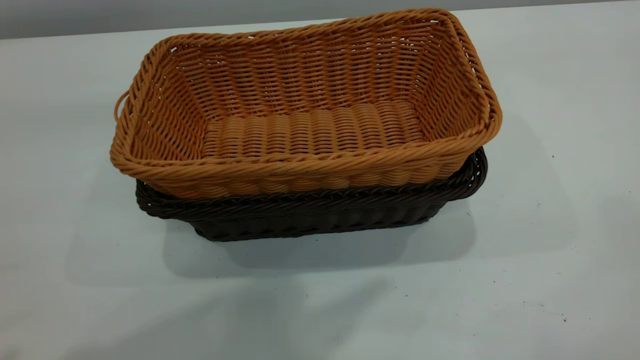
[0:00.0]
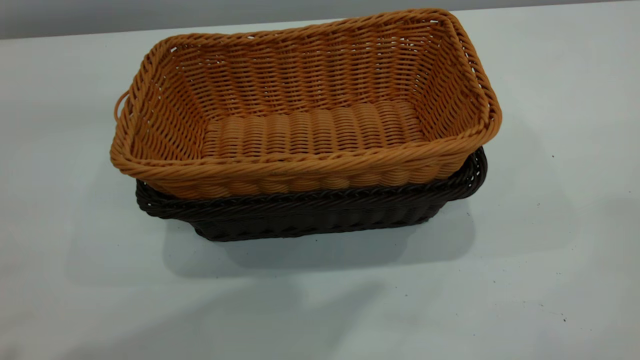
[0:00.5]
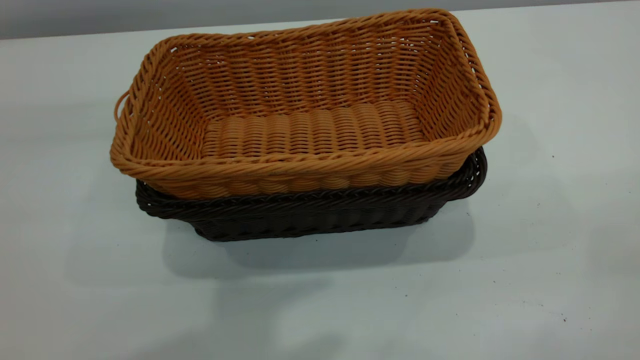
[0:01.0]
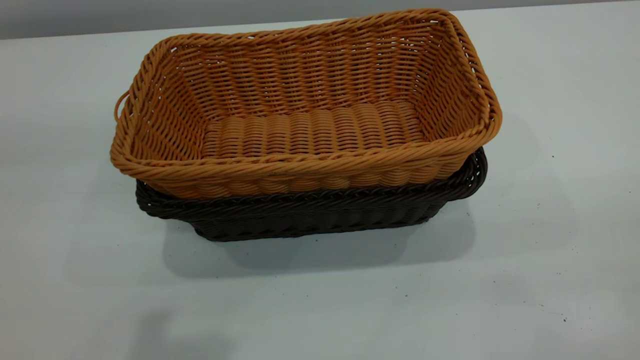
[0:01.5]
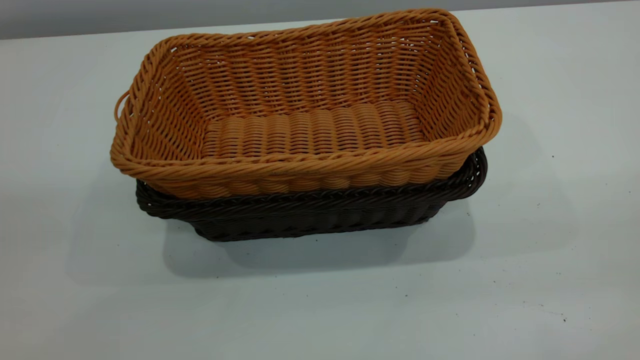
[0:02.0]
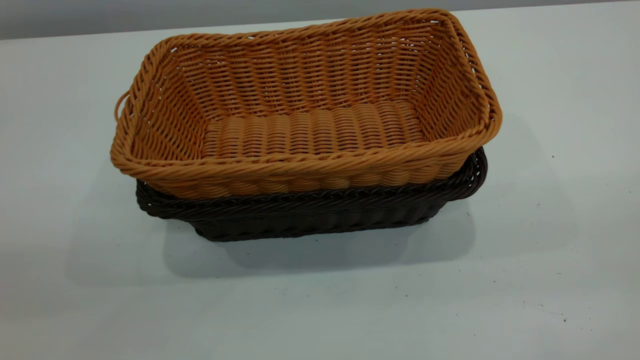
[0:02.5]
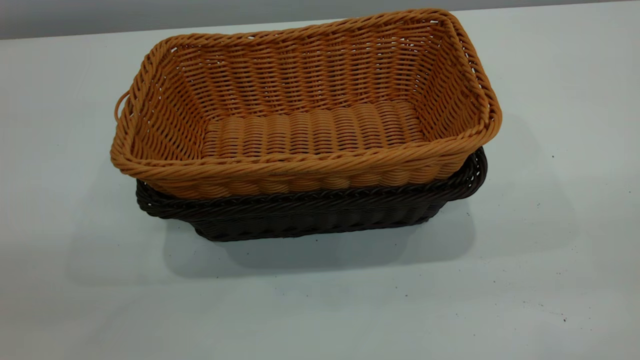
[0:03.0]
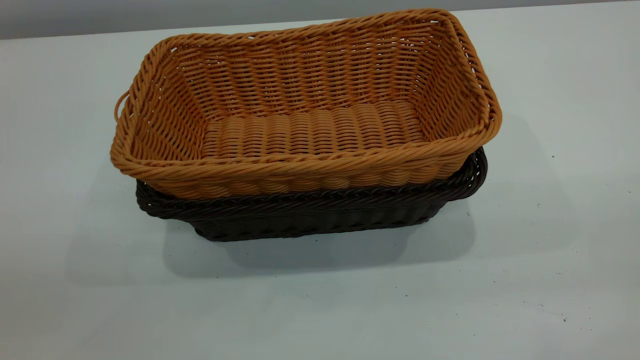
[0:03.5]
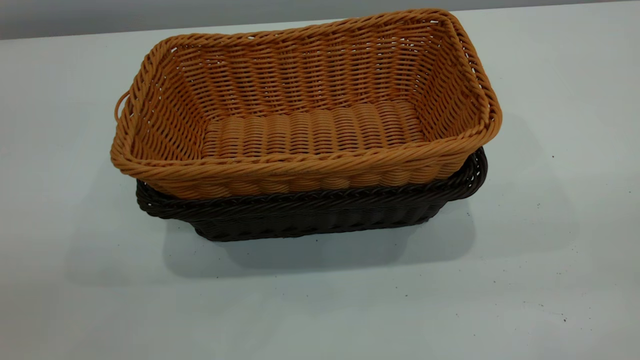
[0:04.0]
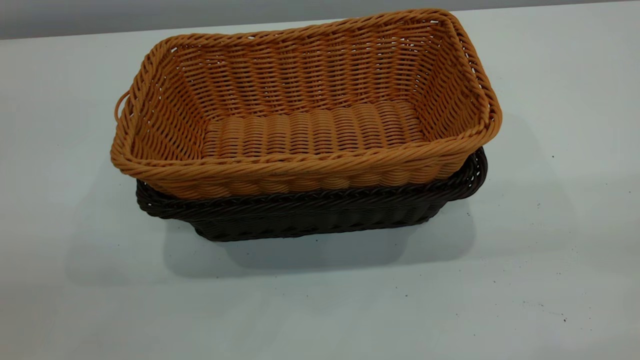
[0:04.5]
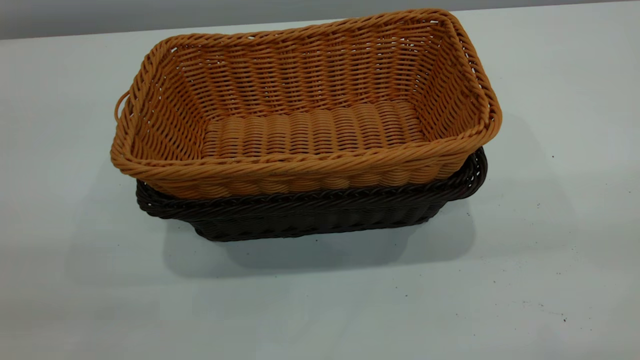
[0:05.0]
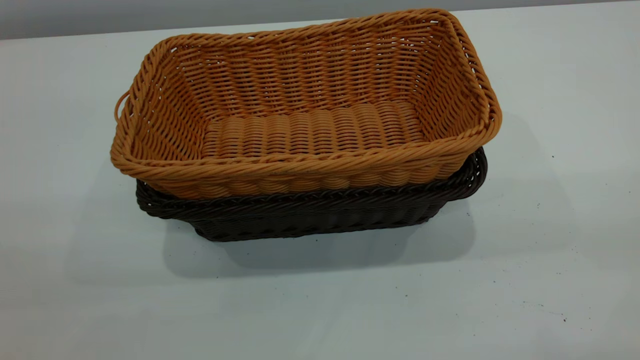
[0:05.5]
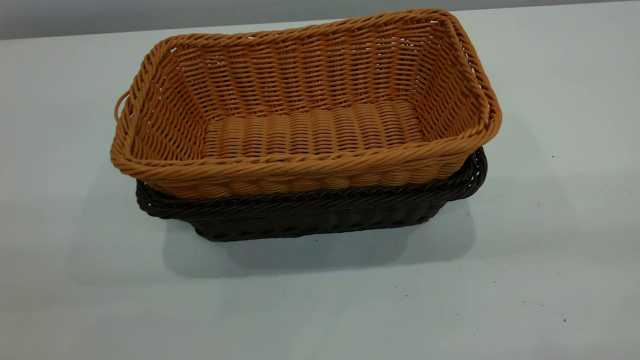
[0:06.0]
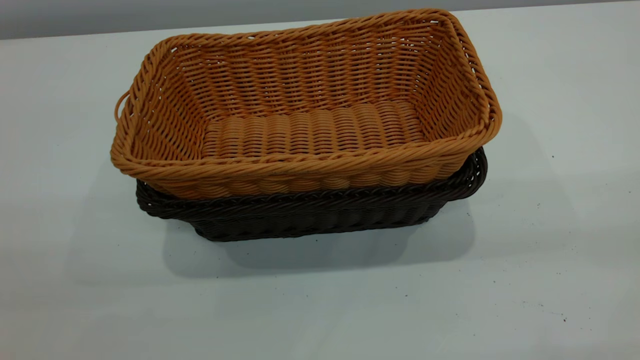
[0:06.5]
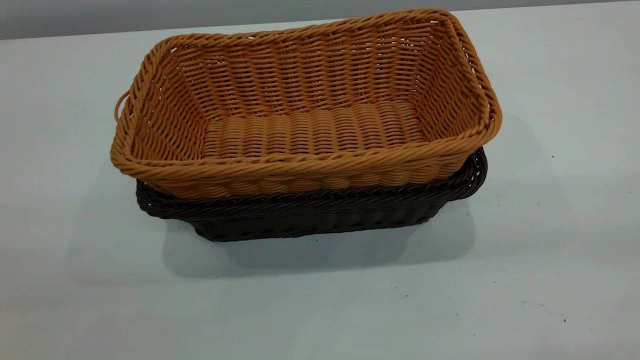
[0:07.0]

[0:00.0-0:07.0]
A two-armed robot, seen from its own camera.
Task of the whole recording: the left gripper grasp the black basket and place it in the center of the table, the right gripper grasp the brown basket and place it inside the black one.
0:00.0 to 0:02.0: The right gripper goes roughly 20 cm downward and backward. Meanwhile the left gripper moves backward, to the left and downward, roughly 20 cm, and closes up.

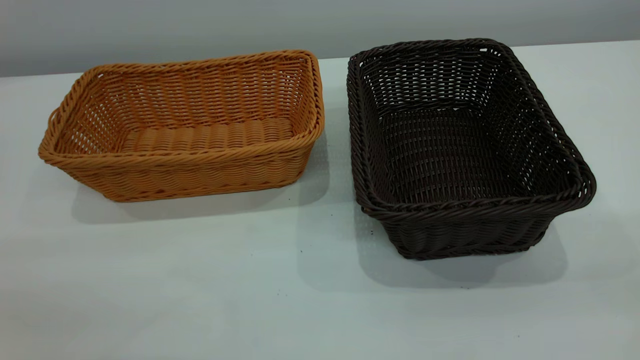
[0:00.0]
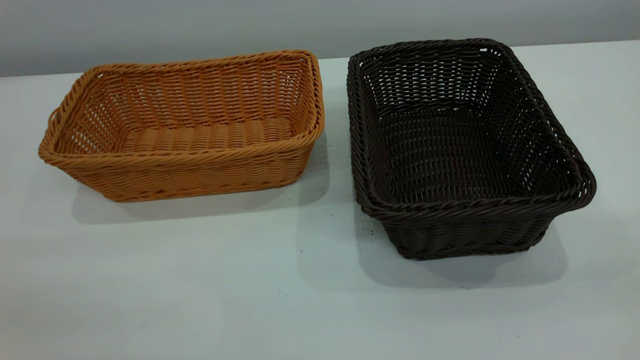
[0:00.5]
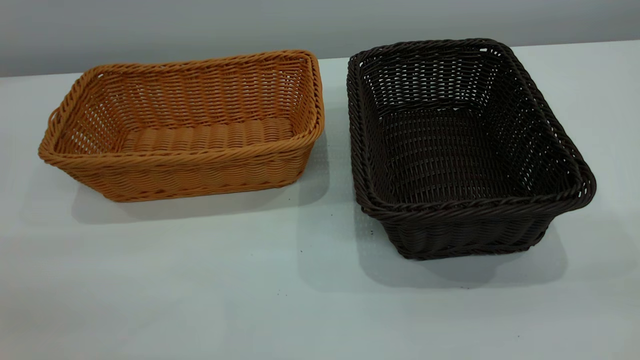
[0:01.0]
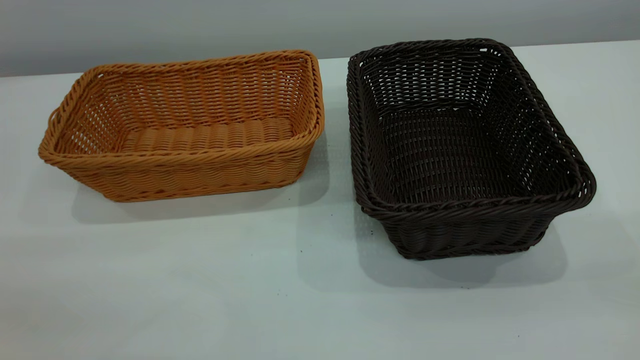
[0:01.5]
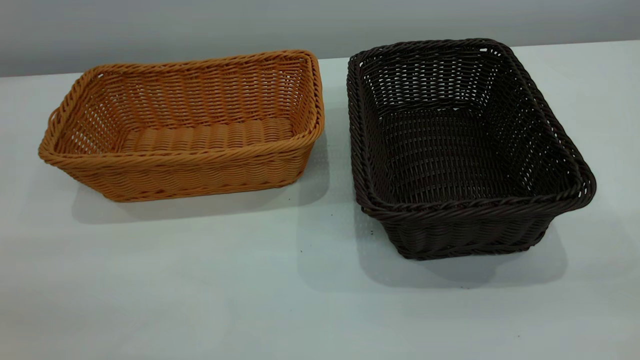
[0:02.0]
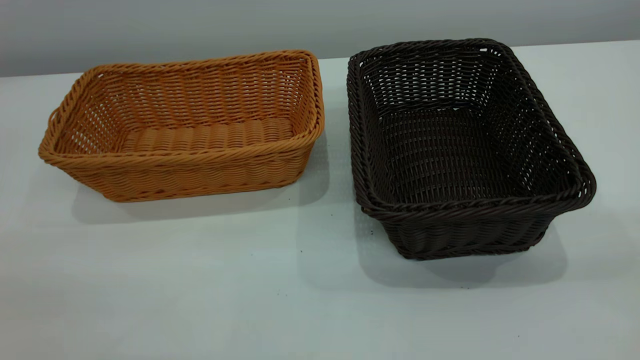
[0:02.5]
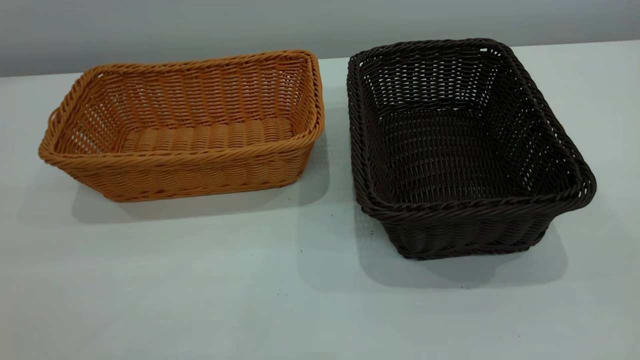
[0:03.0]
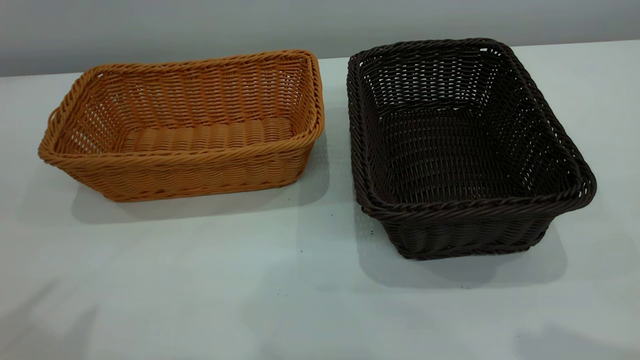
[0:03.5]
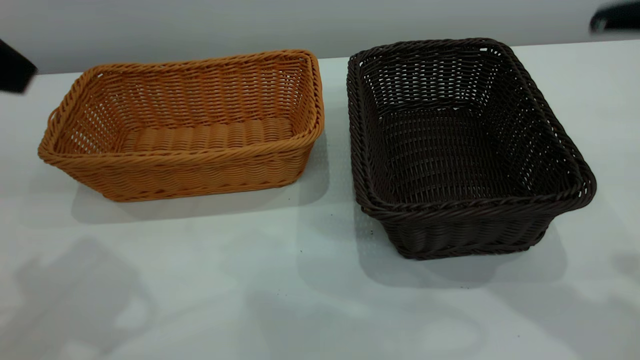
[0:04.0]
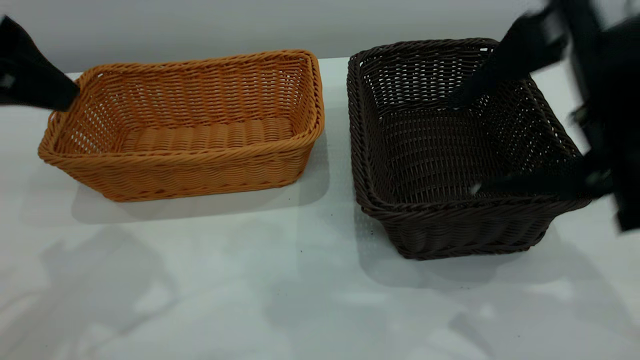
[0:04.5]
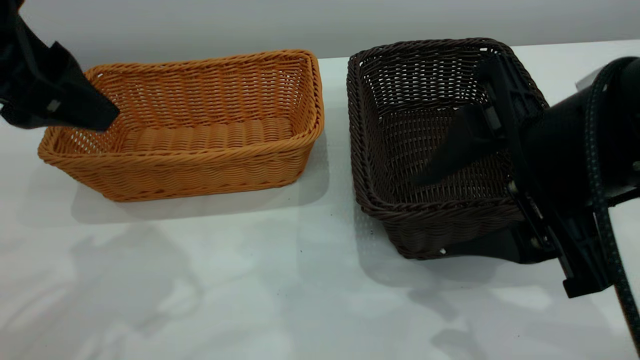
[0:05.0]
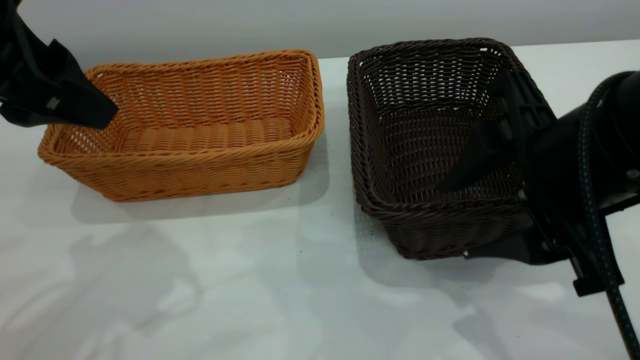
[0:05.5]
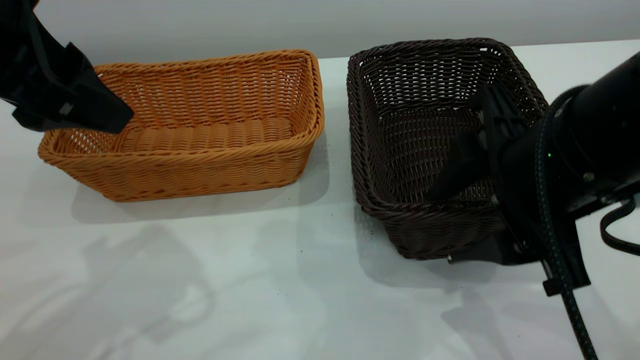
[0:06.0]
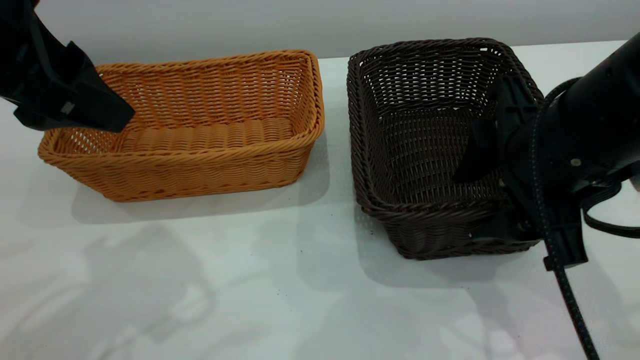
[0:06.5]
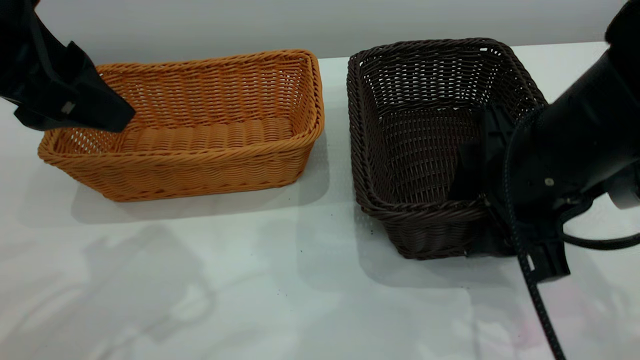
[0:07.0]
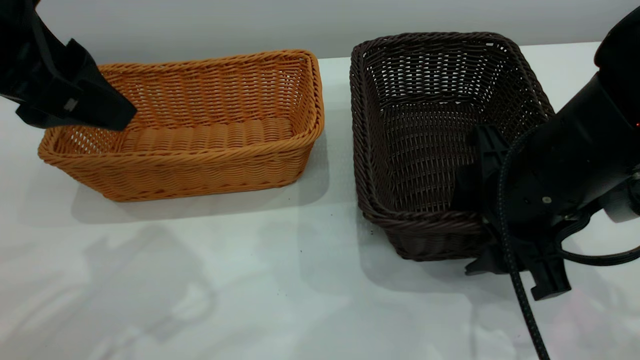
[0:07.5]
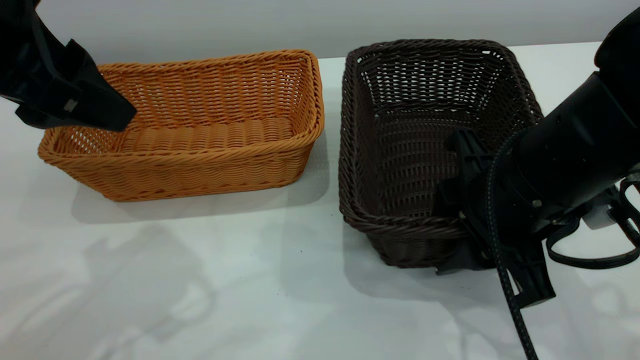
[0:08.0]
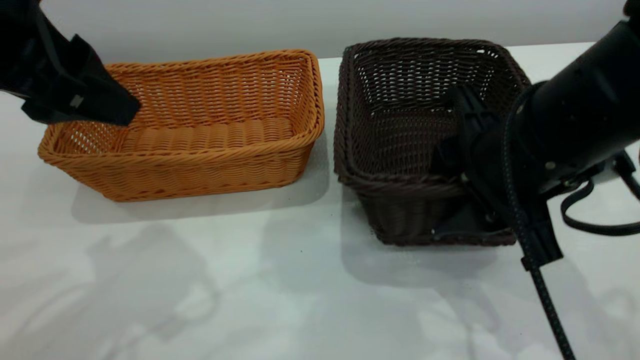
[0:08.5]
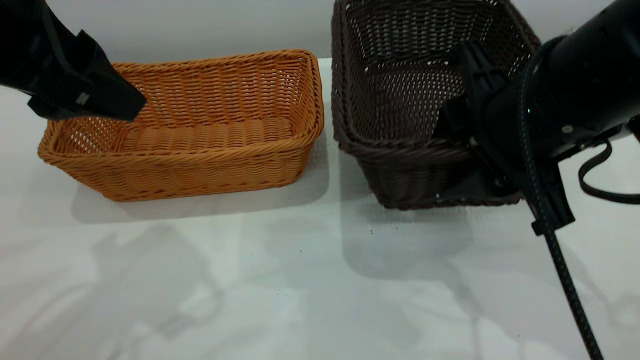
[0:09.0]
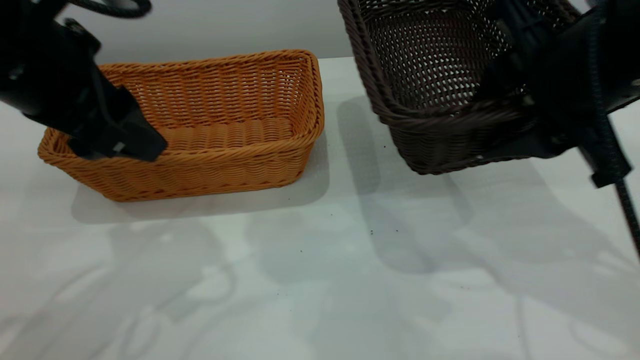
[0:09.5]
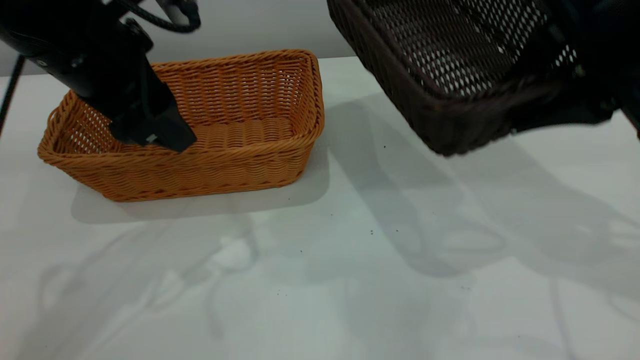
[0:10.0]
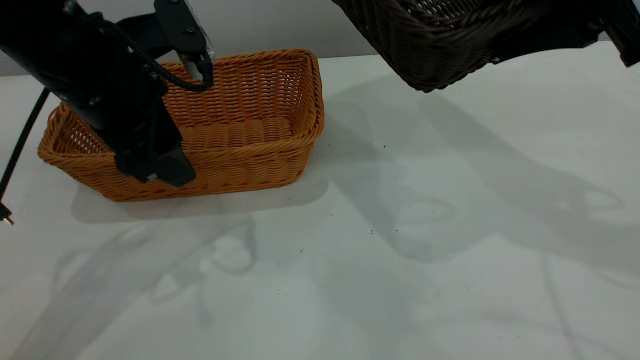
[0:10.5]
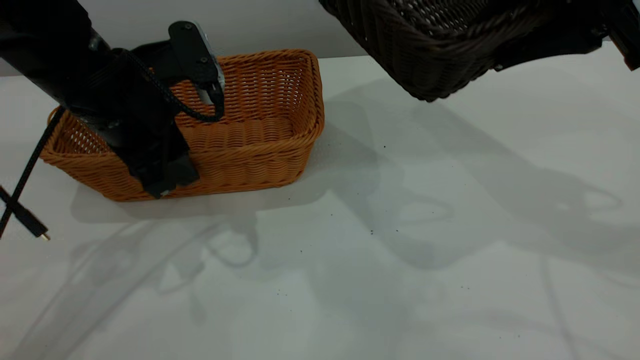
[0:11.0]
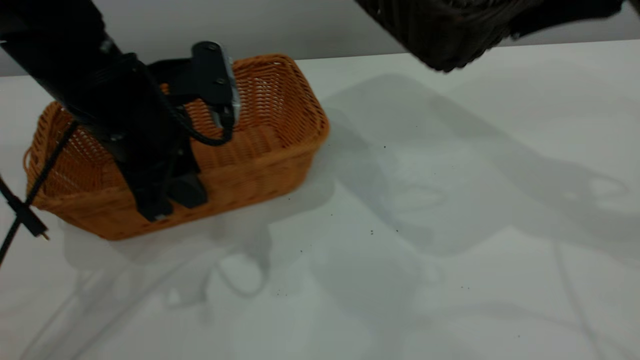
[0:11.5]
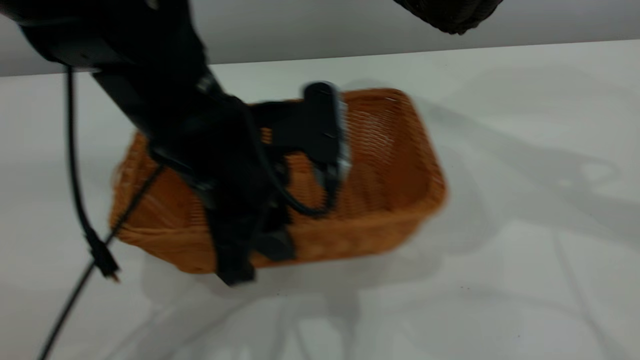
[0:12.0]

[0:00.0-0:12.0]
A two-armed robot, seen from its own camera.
Task of the whole recording: the left gripper grasp the brown basket and place it in the center of the table, the right gripper grasp the black basket and place it inside the brown one.
Step, 0:00.0 to 0:10.0: Pick up the light basket with the right gripper.
0:00.0 to 0:02.0: The two grippers keep their place.
0:02.0 to 0:04.0: The right gripper is displaced forward by some 20 cm, and opens up.
0:04.0 to 0:06.0: The right gripper shifts roughly 15 cm downward and to the left. The left gripper moves approximately 5 cm.
0:06.0 to 0:08.0: The grippers move only a little.
0:08.0 to 0:10.0: The left gripper moves forward and downward, approximately 10 cm. Meanwhile the right gripper goes about 15 cm upward and to the right.
0:10.0 to 0:12.0: The left gripper heads to the right, backward and downward, covering some 15 cm, and closes its fingers; the right gripper heads upward, covering some 10 cm.

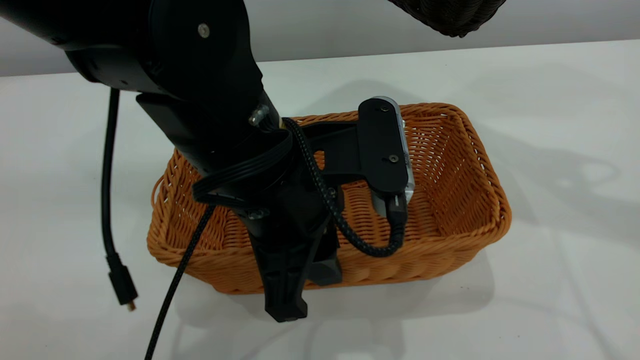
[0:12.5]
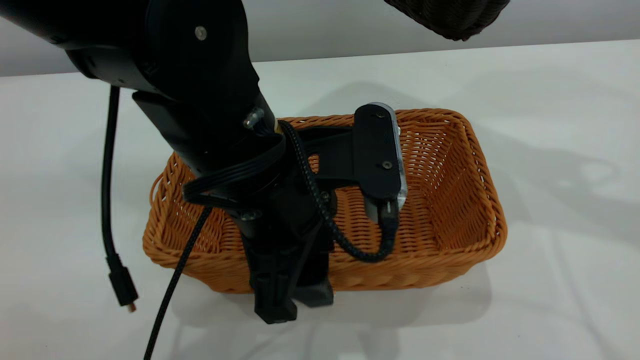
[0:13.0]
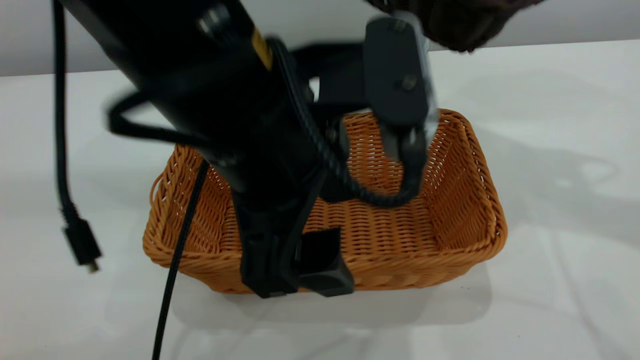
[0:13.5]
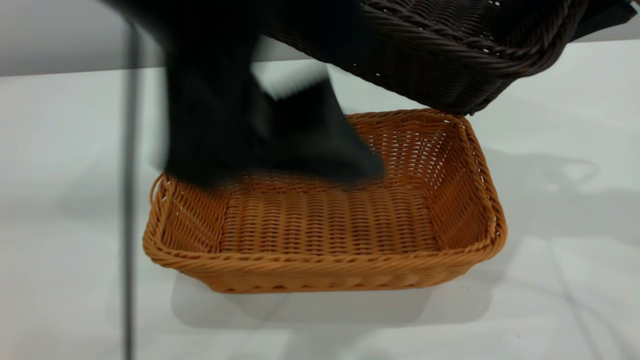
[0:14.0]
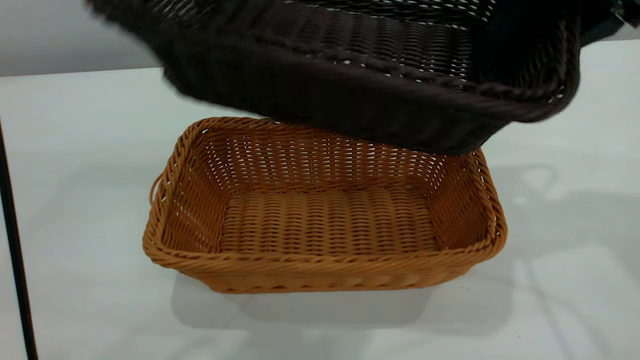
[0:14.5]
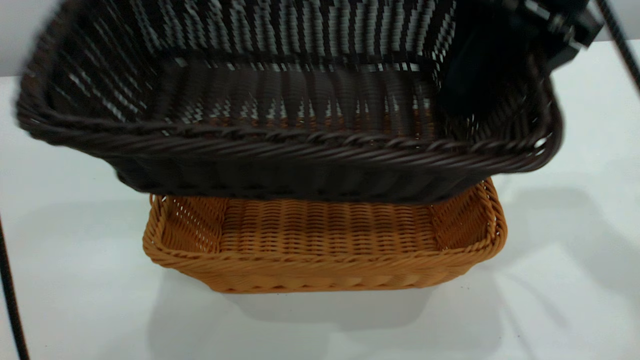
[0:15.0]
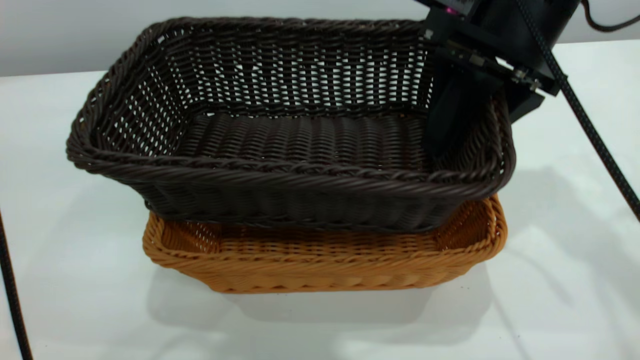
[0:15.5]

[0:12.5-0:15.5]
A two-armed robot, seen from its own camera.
Task of the whole recording: the left gripper grasp the brown basket and place it in the center of the table, the right gripper grasp the black basket and place it inside the brown one.
0:12.5 to 0:14.0: The left gripper travels upward and backward by some 20 cm, and opens up.
0:14.0 to 0:15.5: The left gripper shifts about 10 cm upward. Meanwhile the right gripper heads to the left and downward, covering some 10 cm.
